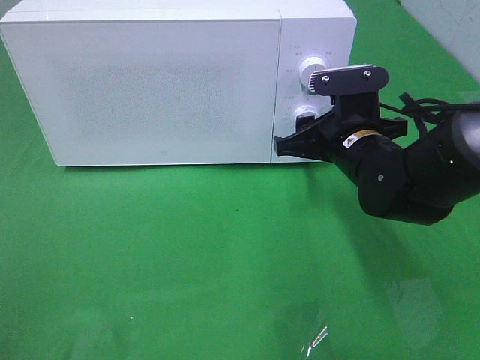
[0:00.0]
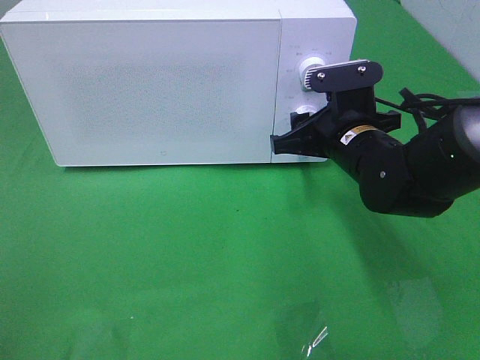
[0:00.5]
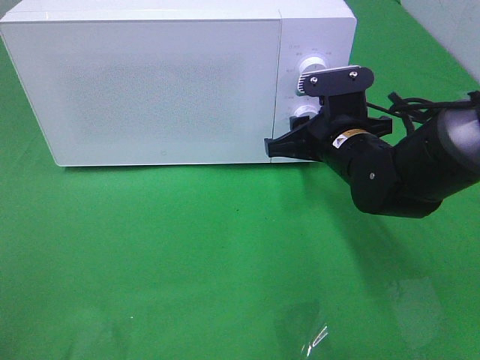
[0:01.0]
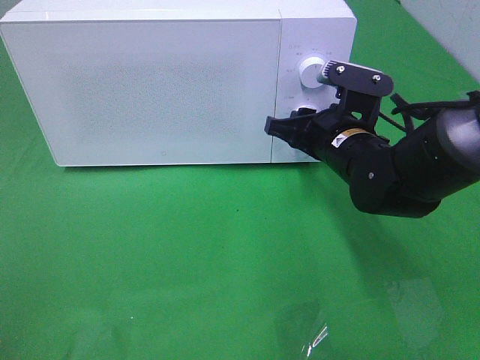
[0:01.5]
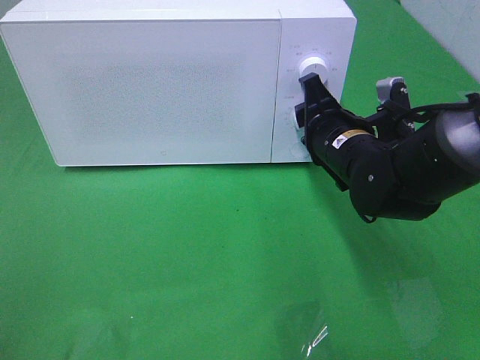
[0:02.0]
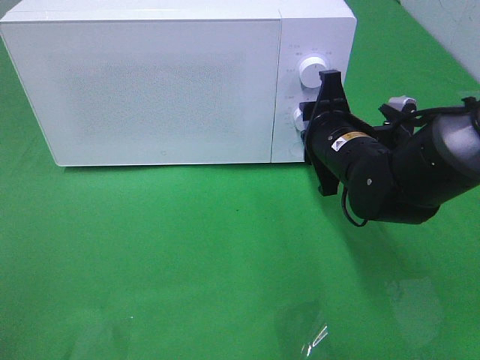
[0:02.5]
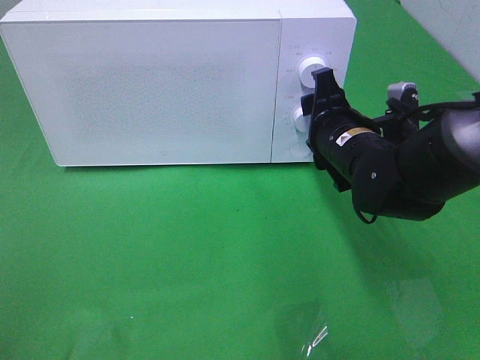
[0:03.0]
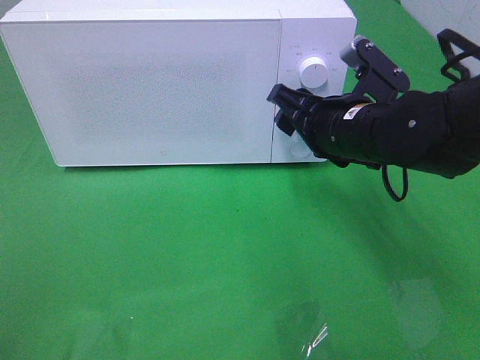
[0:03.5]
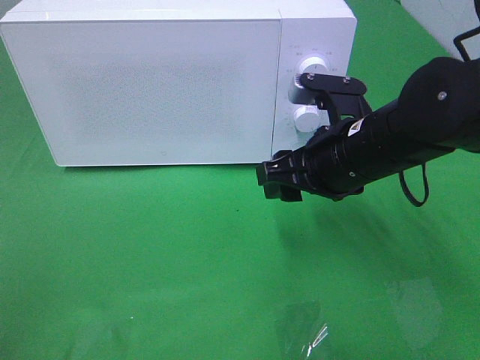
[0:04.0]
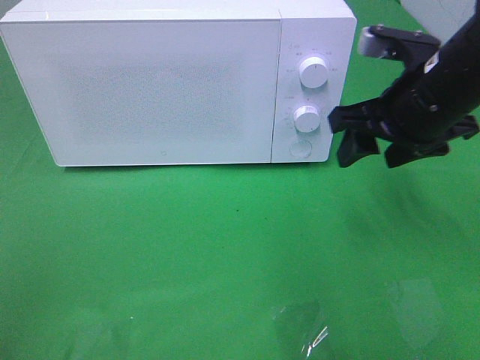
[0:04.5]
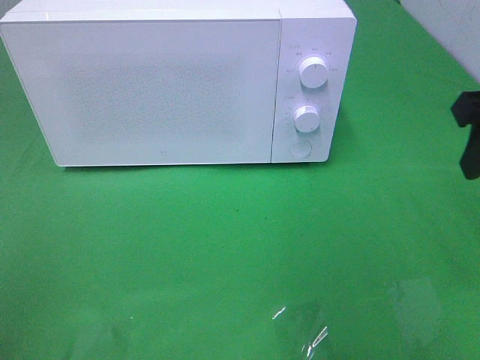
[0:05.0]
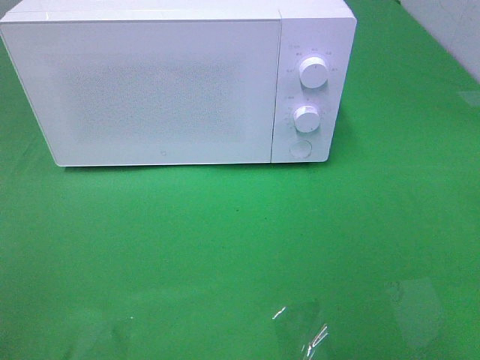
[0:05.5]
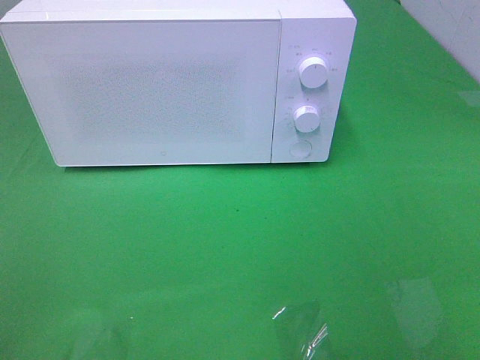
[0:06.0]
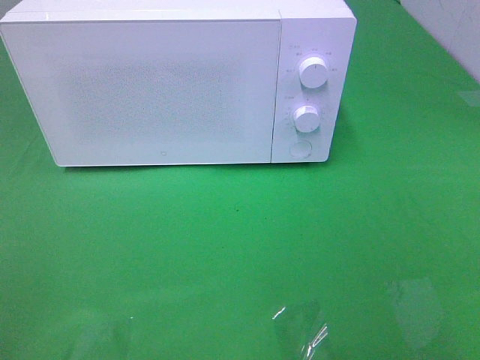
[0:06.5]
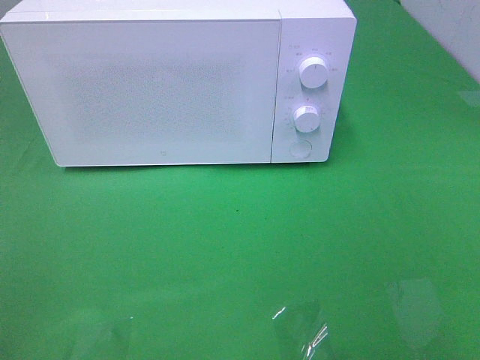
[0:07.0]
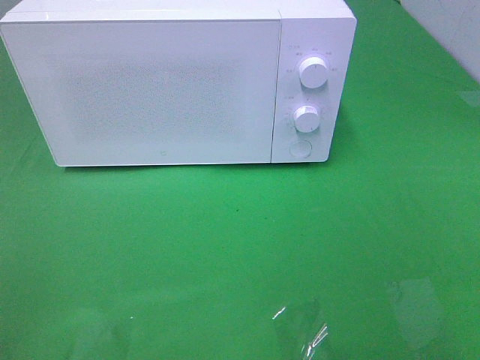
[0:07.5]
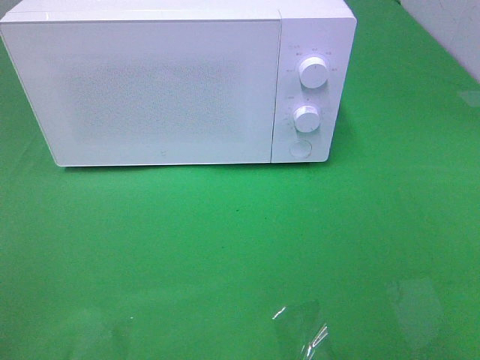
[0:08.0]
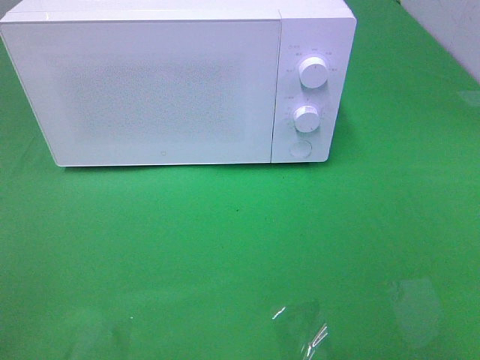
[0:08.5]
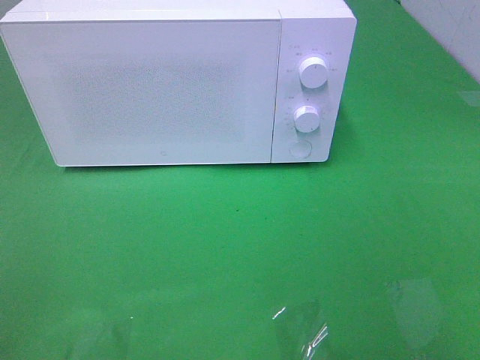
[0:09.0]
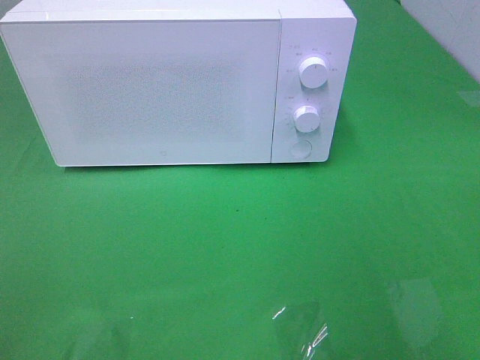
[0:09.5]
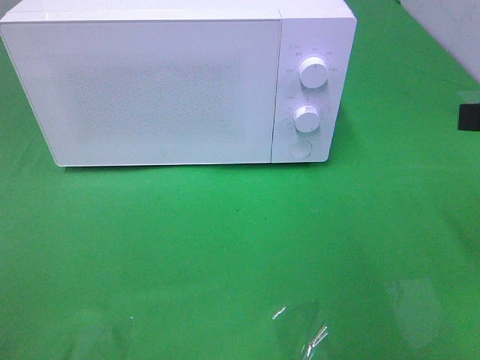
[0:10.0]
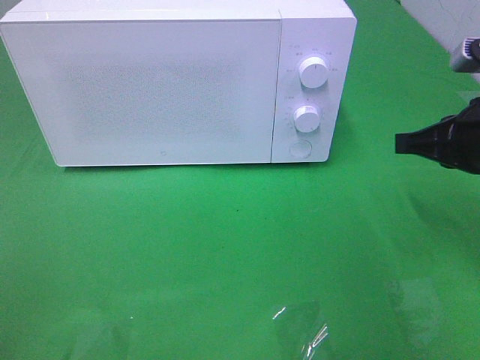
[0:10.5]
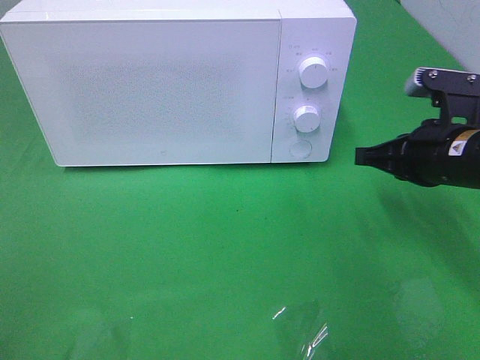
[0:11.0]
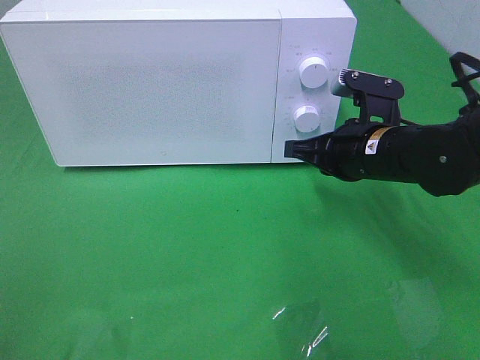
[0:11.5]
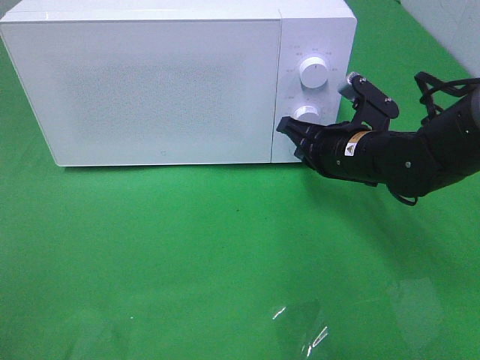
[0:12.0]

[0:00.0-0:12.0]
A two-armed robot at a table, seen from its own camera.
Task of the whole recording: Heat the burger.
Step, 0:00.0 to 0:03.0: Right hand: twist timer button.
0:02.0 to 0:04.0: The right gripper is displaced backward by some 5 cm.
0:04.0 to 0:06.0: The right gripper goes approximately 30 cm backward, to the right and upward.
0:10.0 to 0:12.0: The right gripper heads downward, forward and to the left, covering approximately 25 cm.

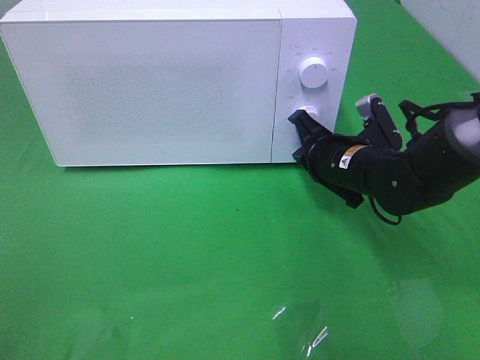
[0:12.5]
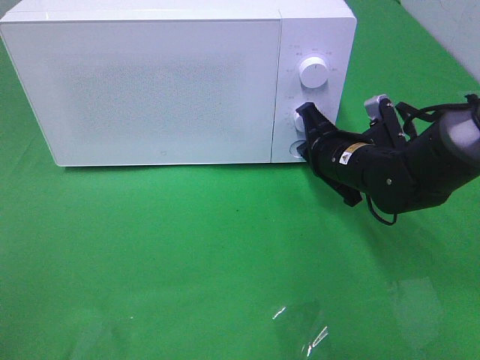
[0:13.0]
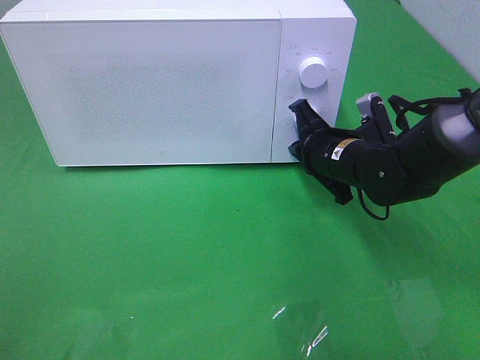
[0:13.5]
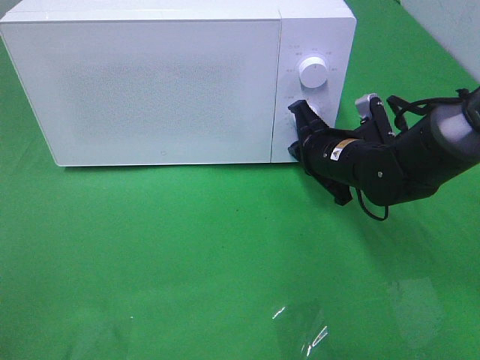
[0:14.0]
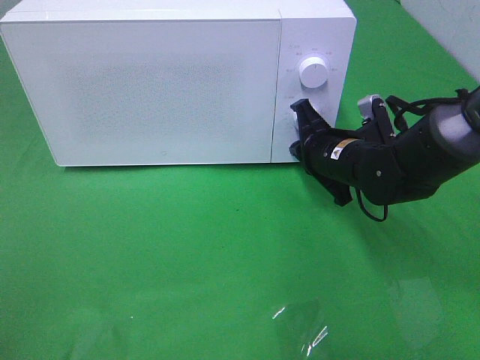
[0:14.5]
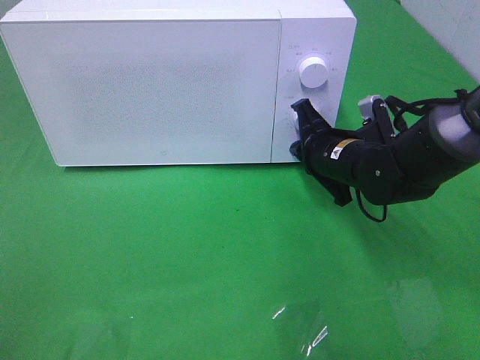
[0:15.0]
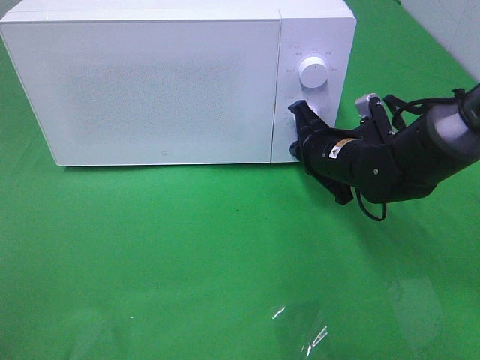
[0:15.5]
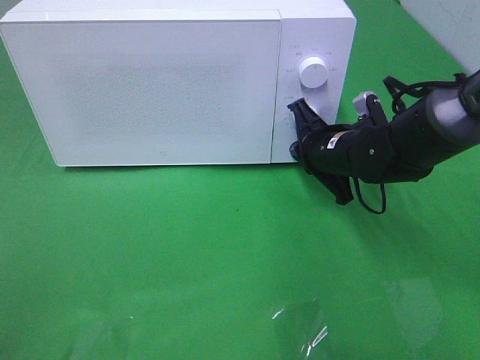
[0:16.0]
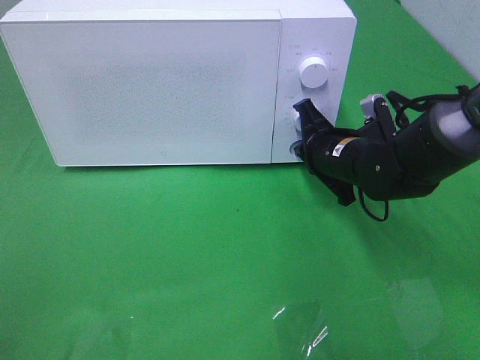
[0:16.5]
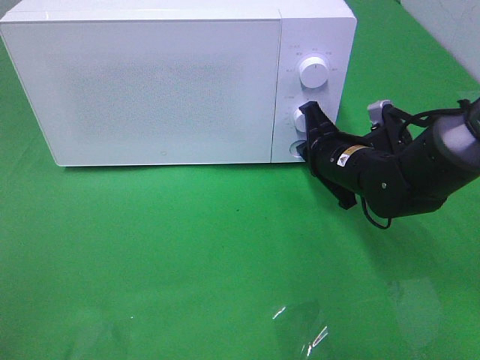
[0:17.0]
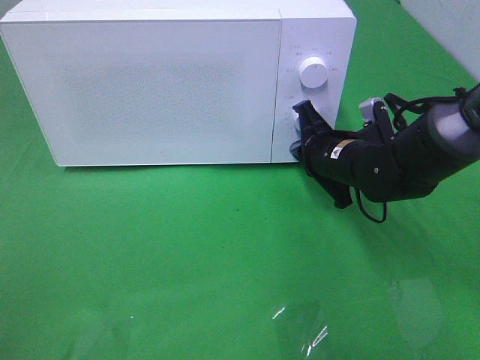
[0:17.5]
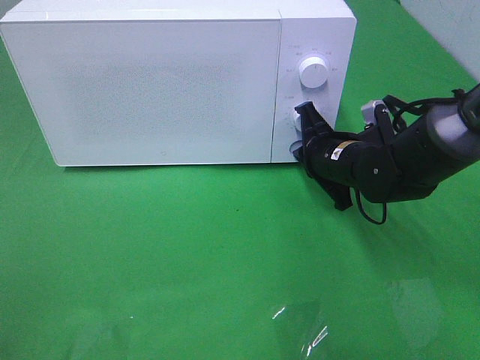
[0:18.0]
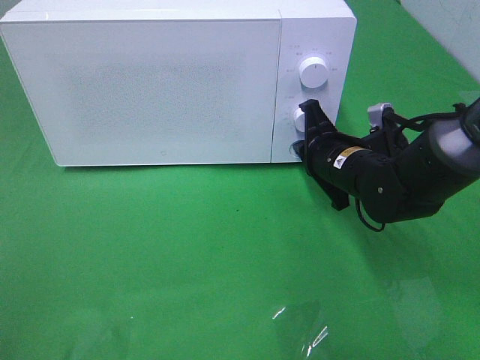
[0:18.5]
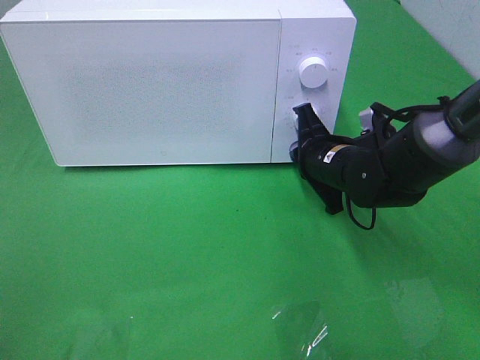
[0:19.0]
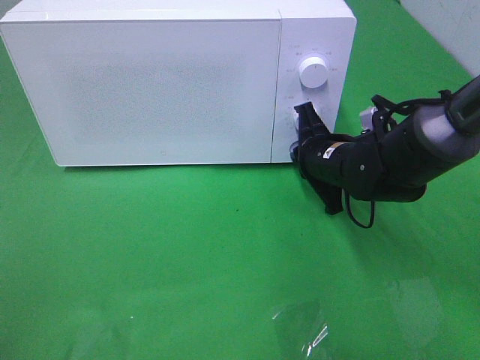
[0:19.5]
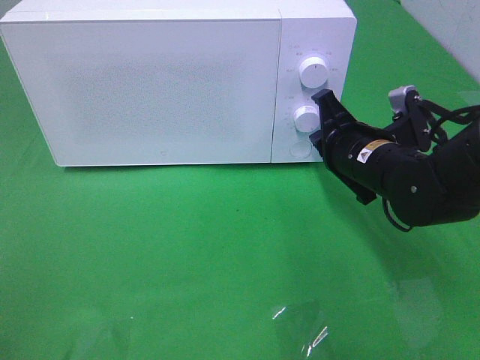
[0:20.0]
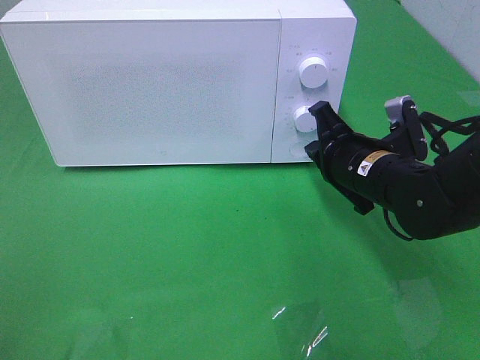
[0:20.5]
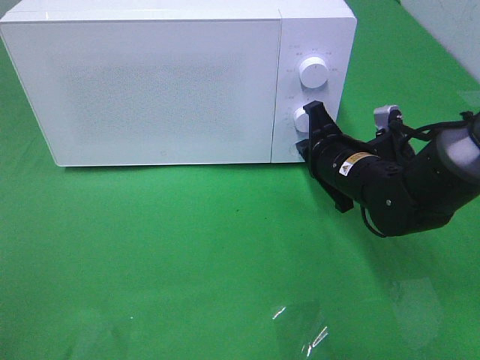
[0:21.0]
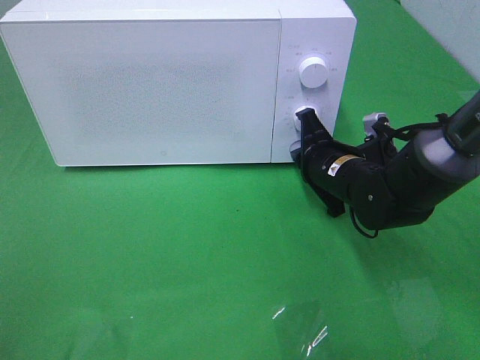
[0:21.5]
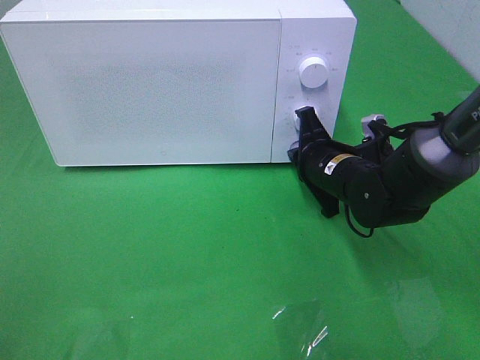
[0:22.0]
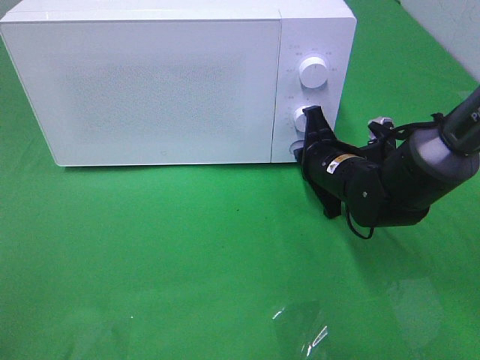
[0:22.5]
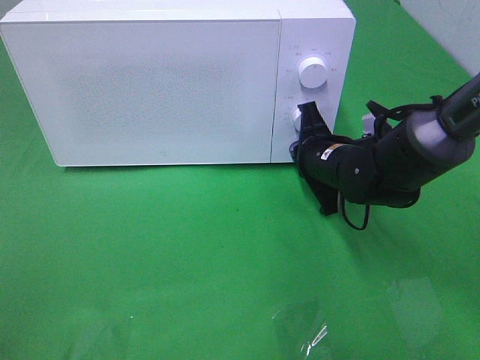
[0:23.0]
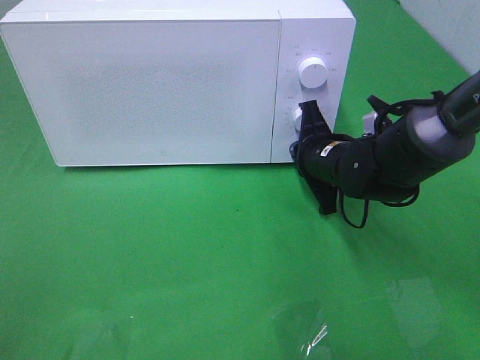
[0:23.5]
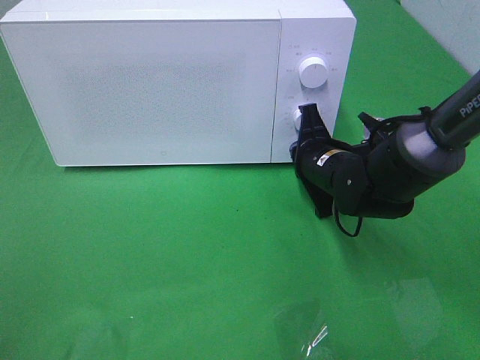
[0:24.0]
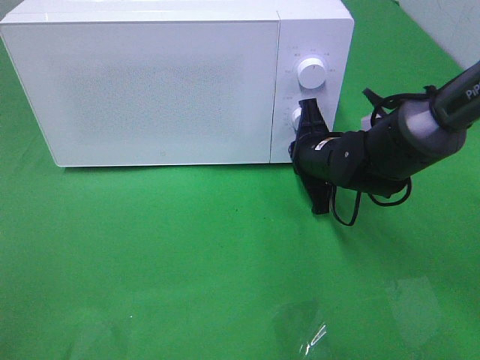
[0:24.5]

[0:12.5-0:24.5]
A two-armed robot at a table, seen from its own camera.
Task of the whole recording: Heat the burger.
0:12.5 to 0:18.5: The grippers make only small movements.
0:18.5 to 0:20.5: There are only small adjustments of the grippers.
0:20.5 to 0:22.5: The right gripper changes place by about 5 cm.
0:22.5 to 0:24.5: The grippers stay close to where they were, moving slightly.

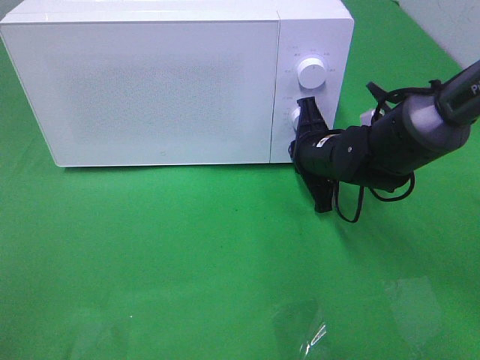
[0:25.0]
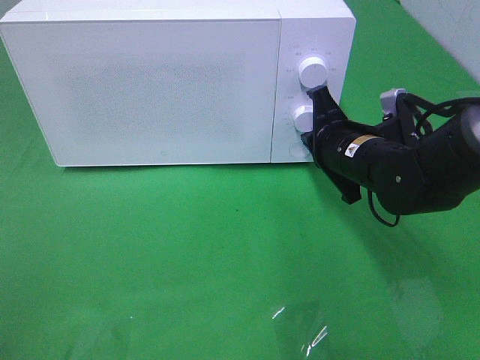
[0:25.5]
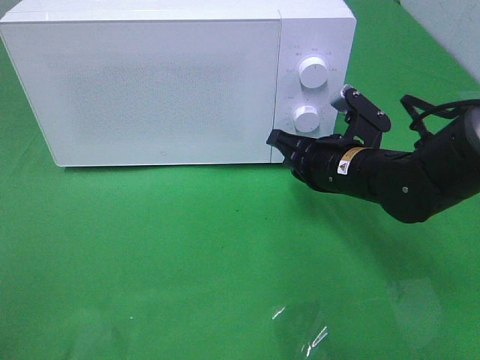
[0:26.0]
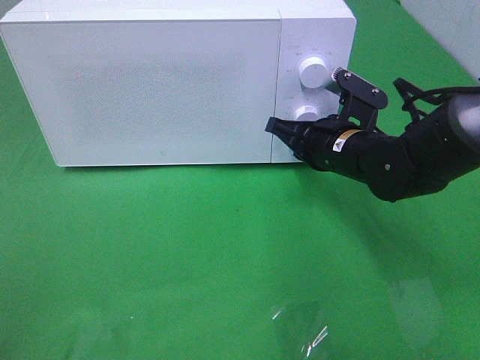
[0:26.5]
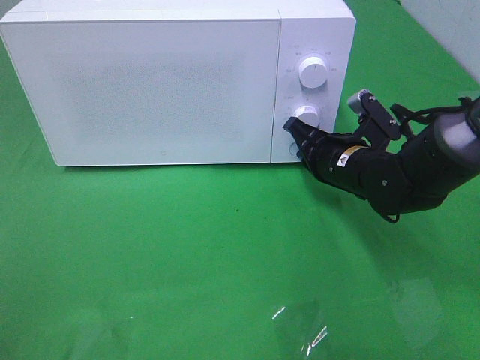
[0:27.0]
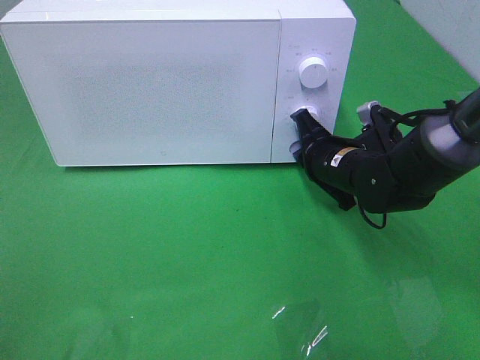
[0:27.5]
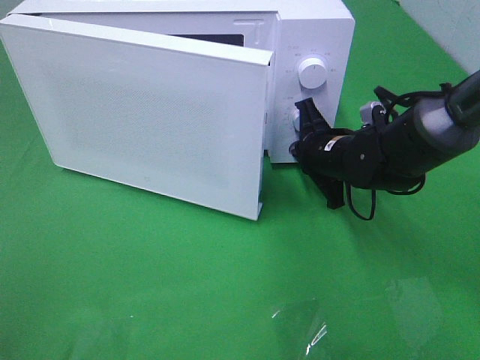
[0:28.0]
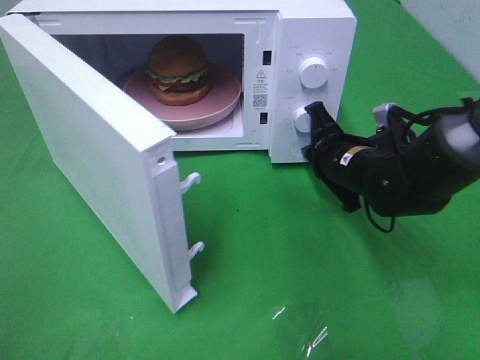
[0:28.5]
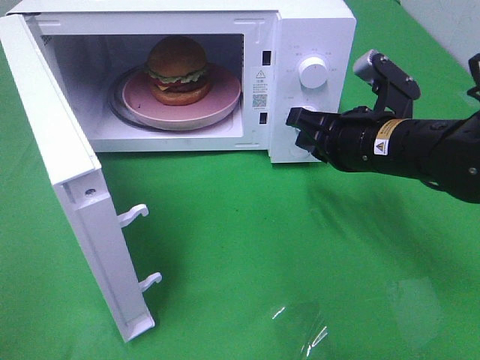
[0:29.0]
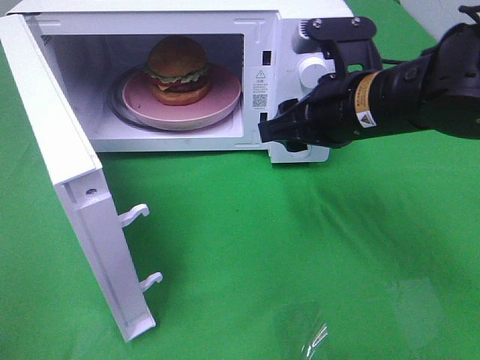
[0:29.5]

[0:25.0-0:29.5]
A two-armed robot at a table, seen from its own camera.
Task of the whole recording: Heat the burger.
Step, 0:25.0 to 0:28.5: Right hand: press the switch.
0:27.0 to 0:29.5: The right gripper moves upward and backward, roughly 15 cm, and opens.
